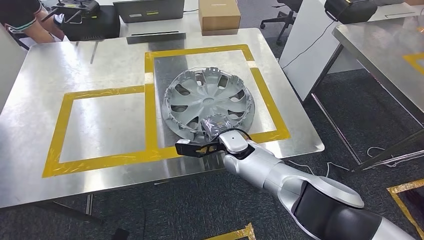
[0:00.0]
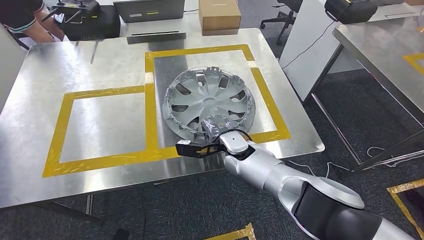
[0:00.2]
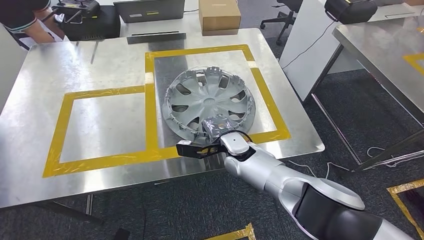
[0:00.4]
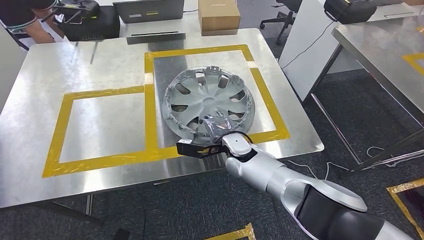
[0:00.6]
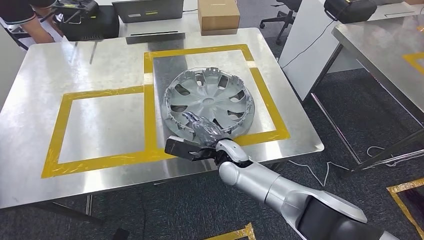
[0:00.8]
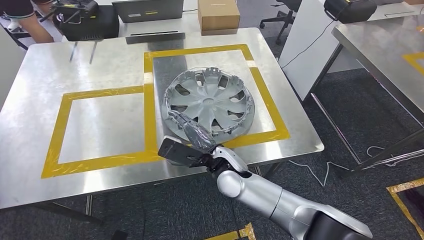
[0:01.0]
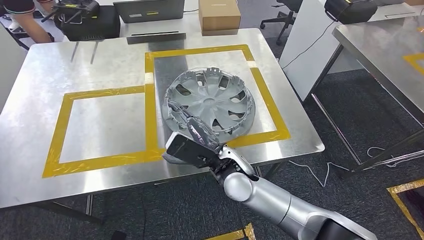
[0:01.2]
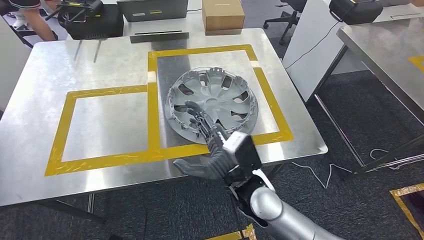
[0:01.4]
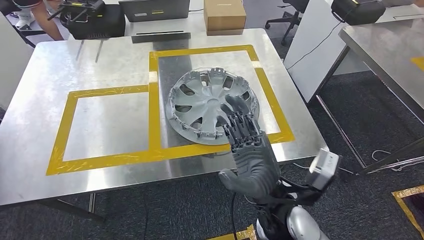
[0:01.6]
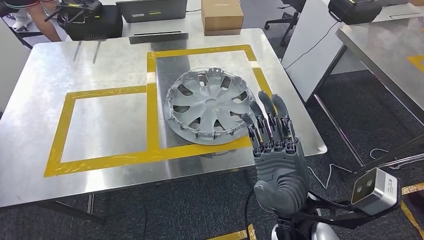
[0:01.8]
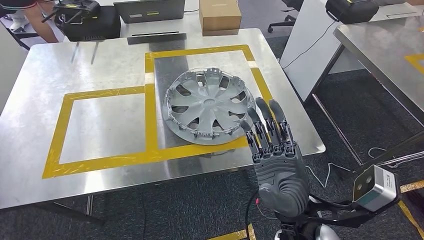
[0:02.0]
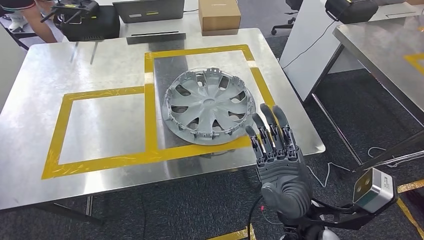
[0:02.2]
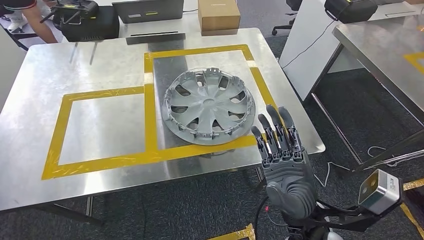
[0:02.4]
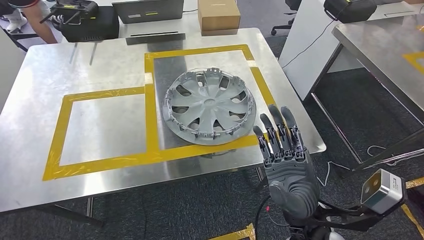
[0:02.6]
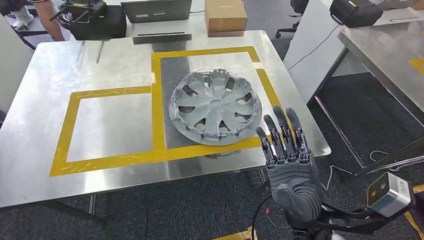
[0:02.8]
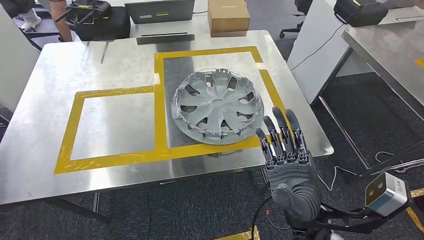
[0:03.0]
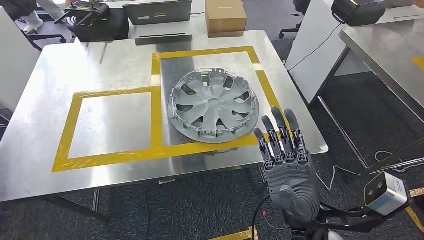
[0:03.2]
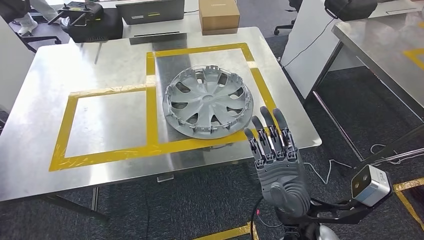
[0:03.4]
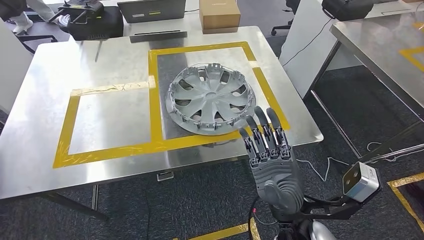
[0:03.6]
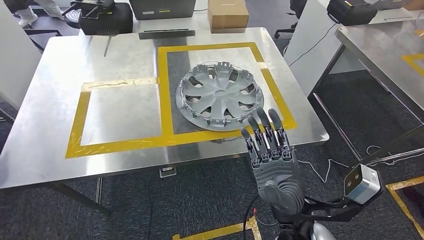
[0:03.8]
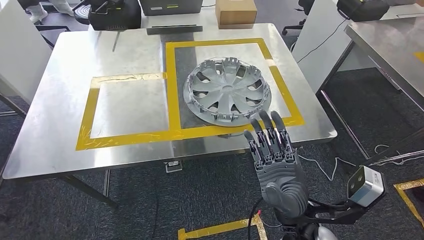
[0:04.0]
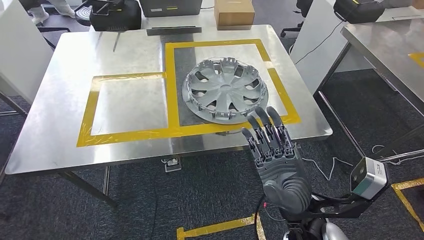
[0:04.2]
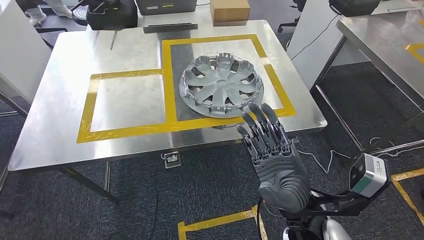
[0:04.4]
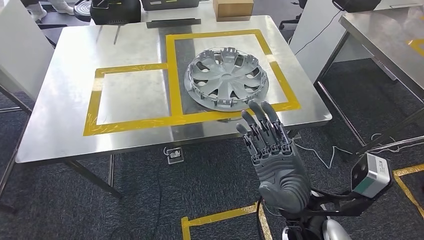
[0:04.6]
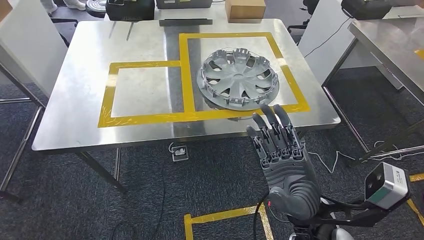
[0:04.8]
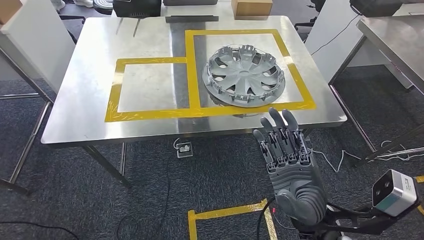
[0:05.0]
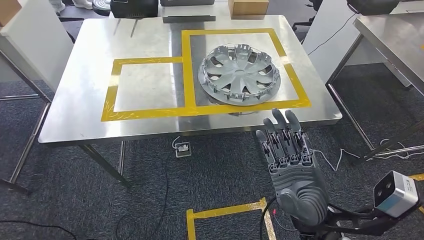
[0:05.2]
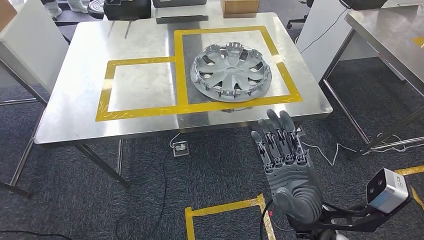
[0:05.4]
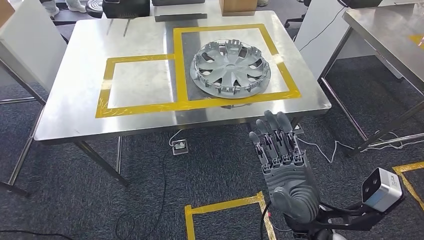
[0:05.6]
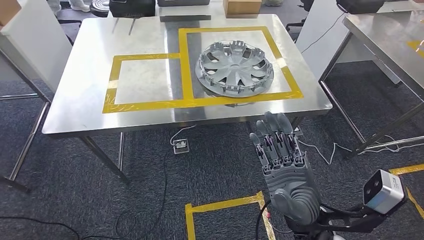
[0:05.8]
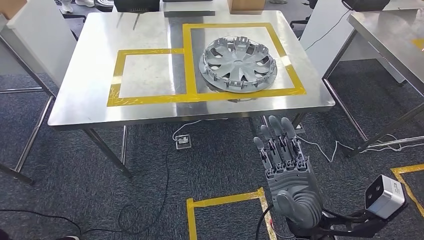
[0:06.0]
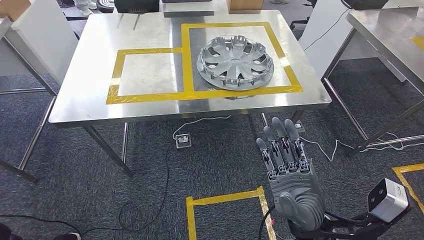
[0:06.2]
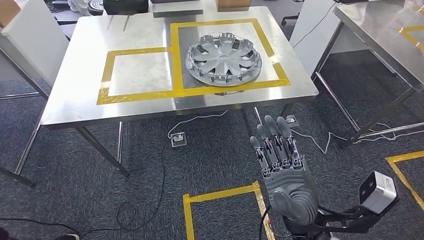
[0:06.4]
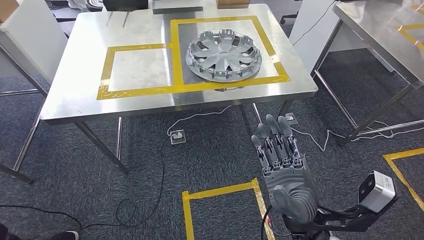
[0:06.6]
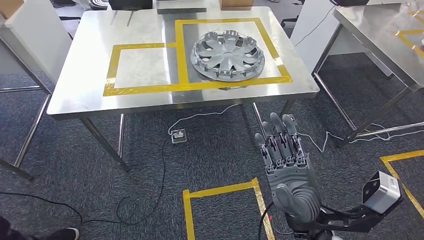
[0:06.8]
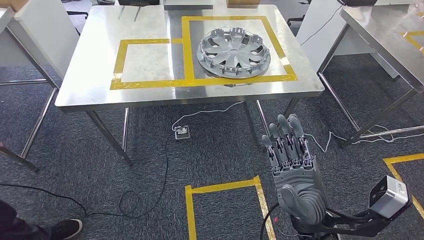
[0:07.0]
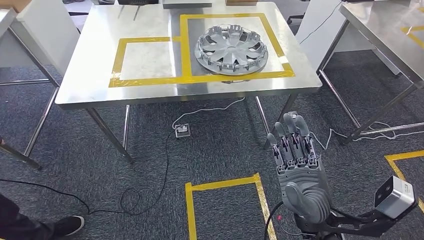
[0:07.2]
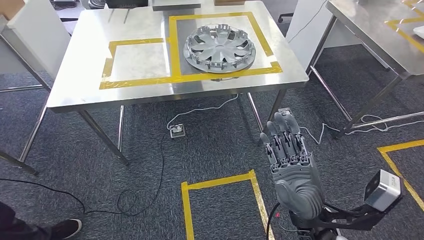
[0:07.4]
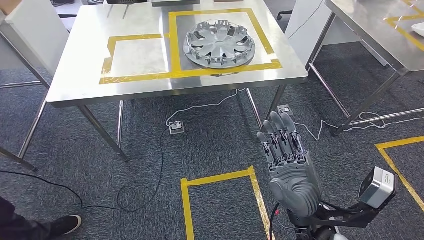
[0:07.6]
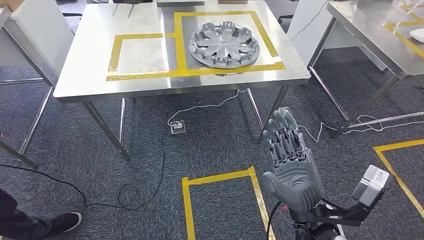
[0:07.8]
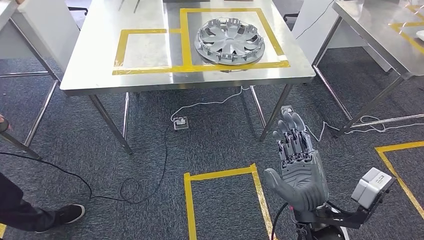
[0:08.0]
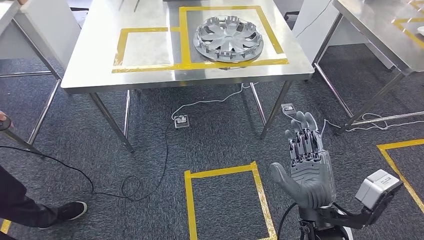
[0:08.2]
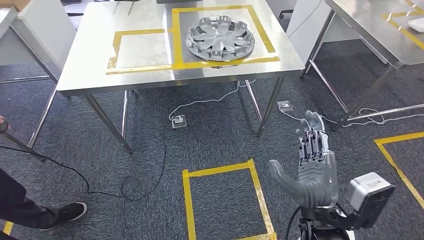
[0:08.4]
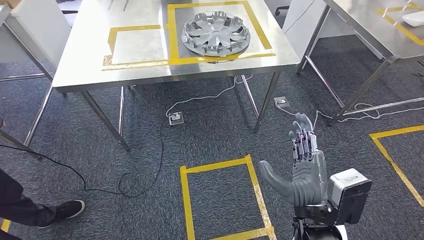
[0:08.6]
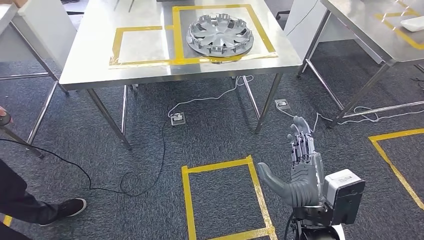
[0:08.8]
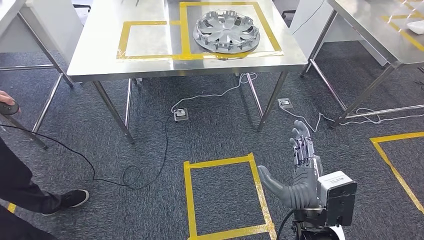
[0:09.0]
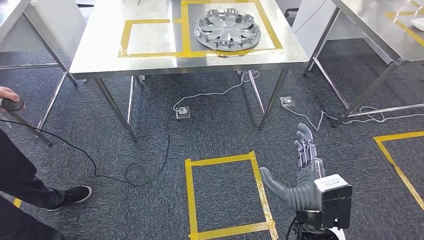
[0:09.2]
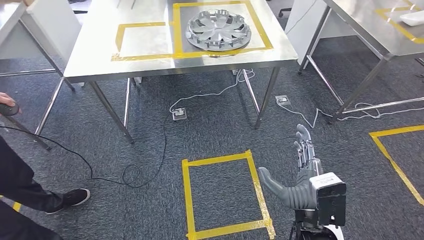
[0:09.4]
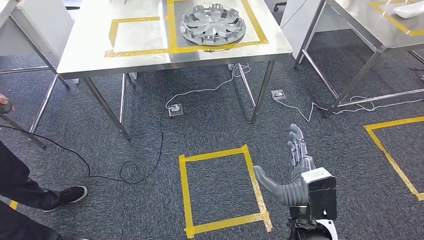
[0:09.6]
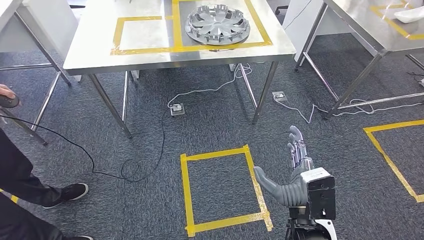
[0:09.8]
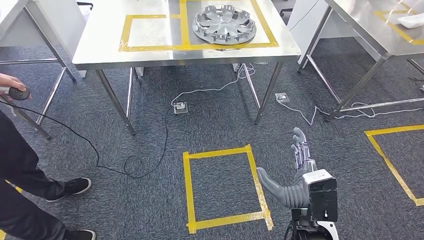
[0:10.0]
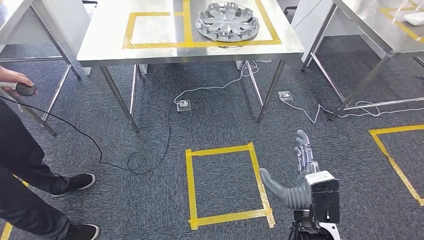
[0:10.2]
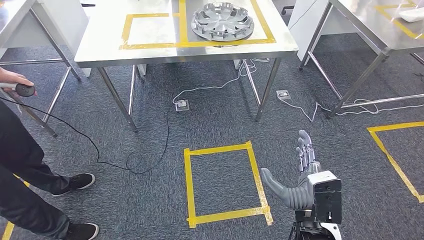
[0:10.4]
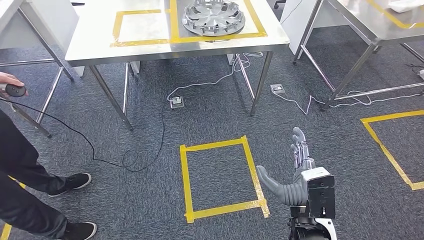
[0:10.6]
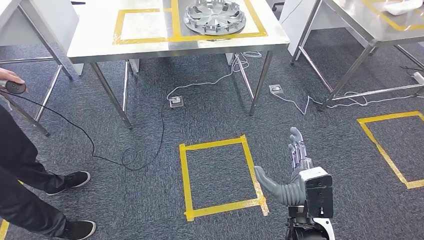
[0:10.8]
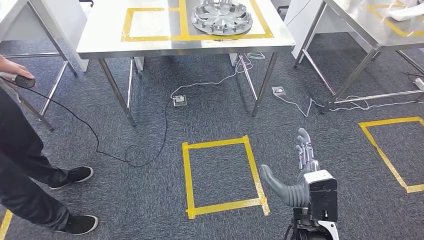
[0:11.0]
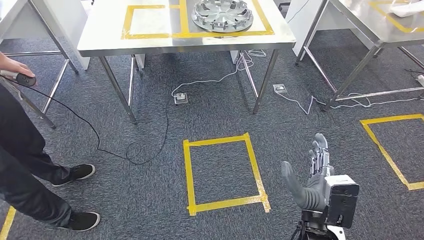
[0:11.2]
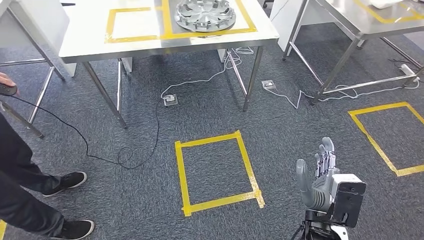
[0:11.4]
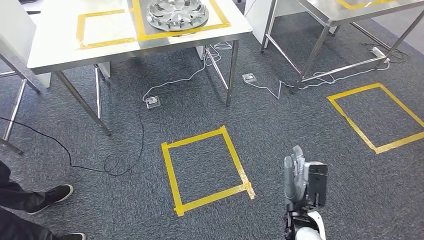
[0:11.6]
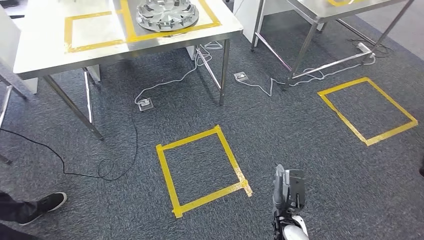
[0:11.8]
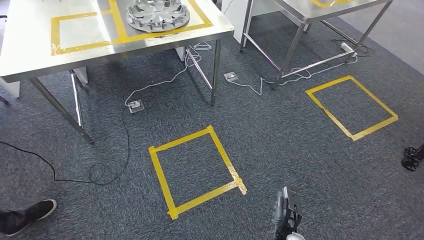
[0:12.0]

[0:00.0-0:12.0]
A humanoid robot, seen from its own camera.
Step, 0:00.0 to 0:04.0: Insert the small component into the corresponding slot on the workbench.

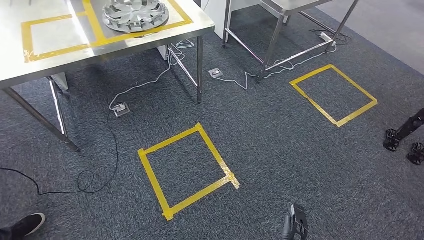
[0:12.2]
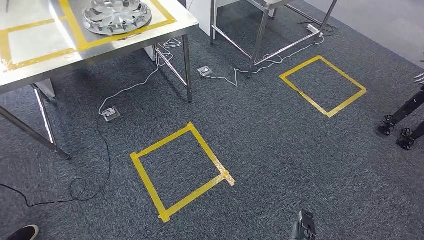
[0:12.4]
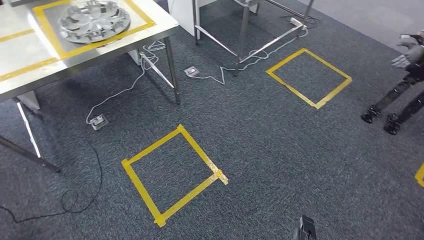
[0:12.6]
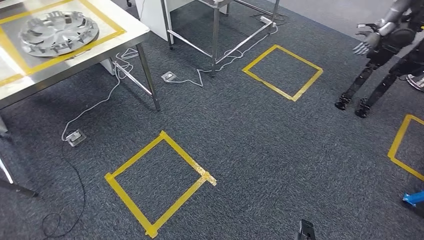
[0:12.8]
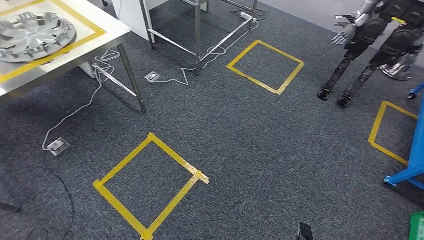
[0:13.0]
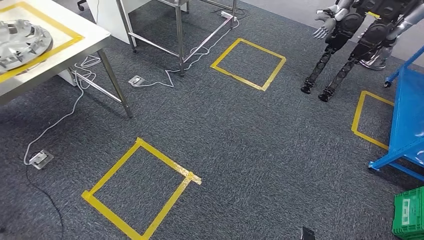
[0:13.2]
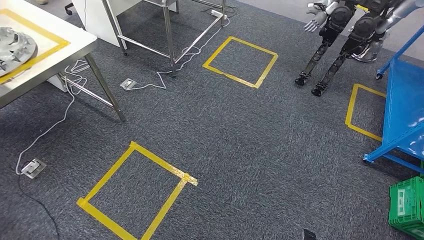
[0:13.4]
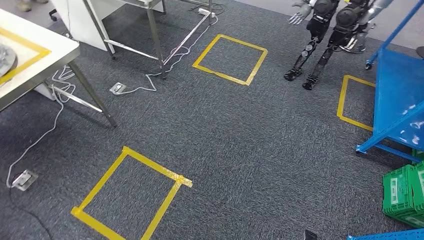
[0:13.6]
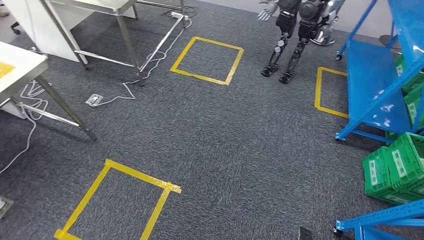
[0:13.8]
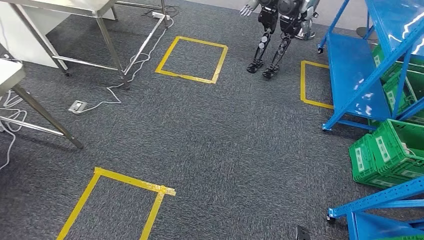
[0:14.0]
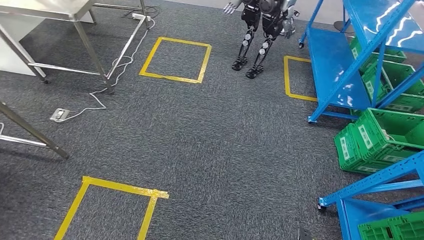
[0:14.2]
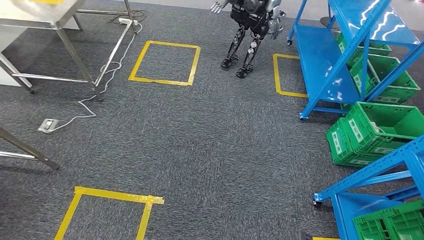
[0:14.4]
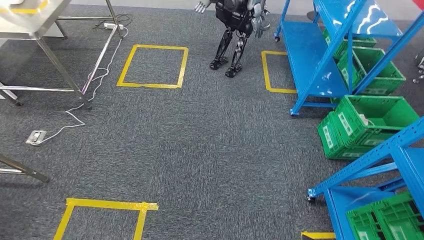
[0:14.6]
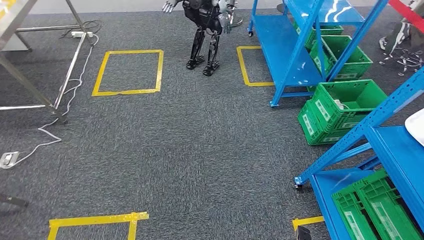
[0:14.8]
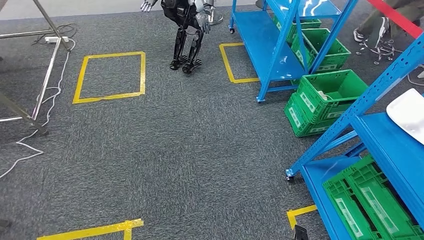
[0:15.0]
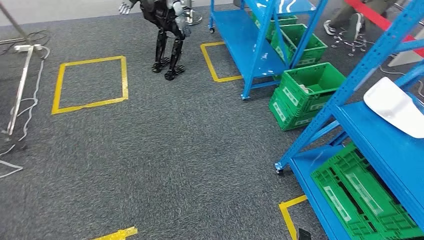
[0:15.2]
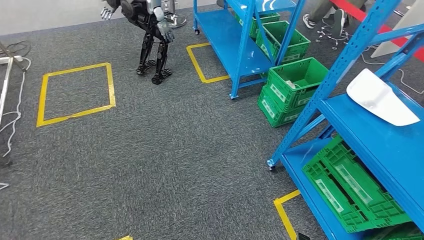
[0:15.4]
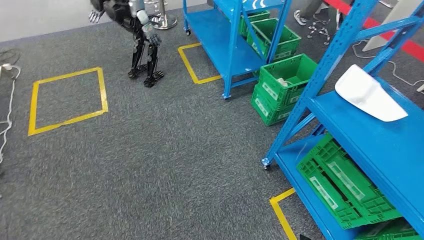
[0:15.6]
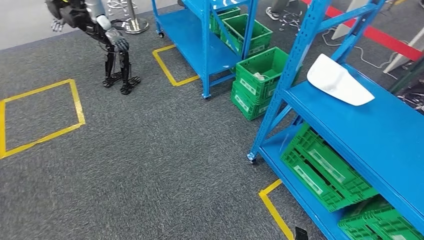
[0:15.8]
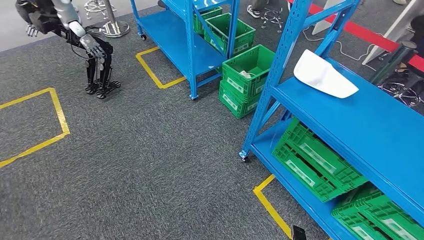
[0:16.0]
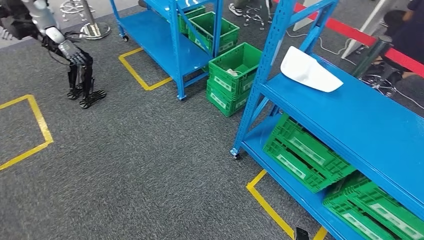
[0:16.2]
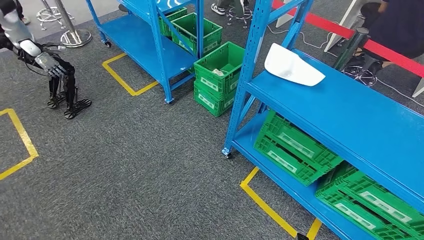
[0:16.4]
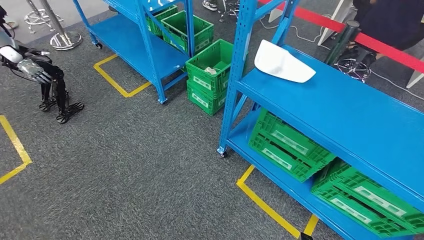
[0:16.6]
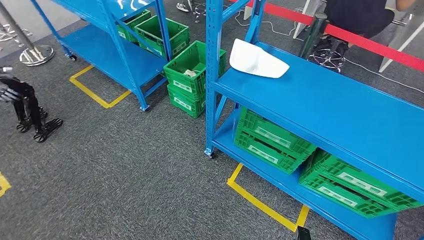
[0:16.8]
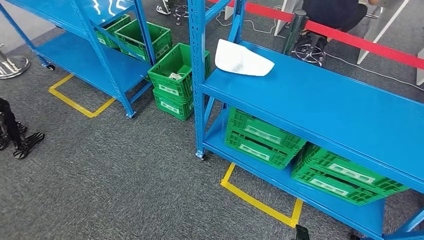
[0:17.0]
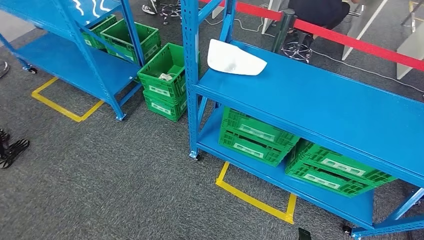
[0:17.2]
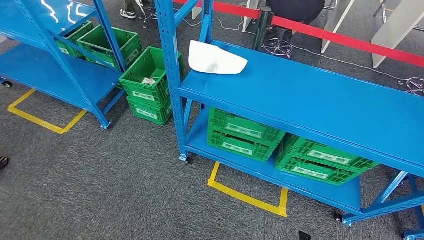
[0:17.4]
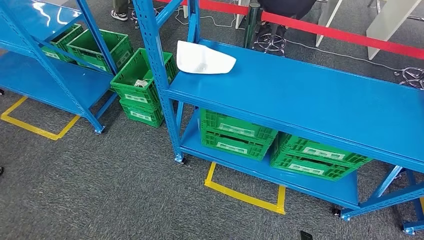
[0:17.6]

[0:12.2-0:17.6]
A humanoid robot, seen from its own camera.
Step, 0:12.2 to 0:17.6: Return to the initial position at the workbench.
